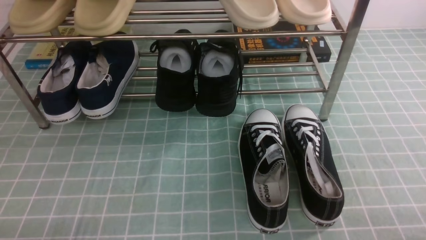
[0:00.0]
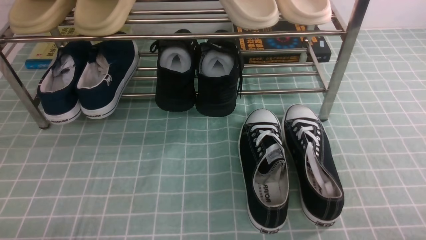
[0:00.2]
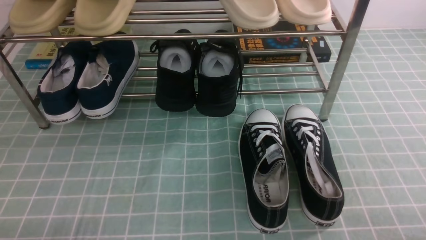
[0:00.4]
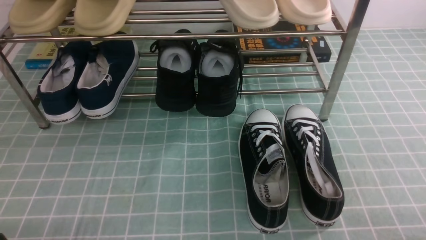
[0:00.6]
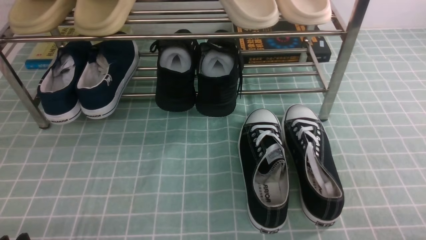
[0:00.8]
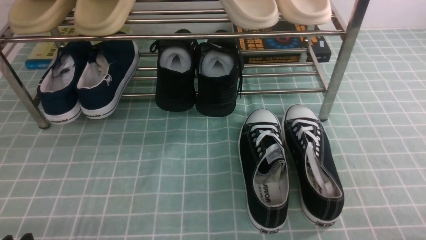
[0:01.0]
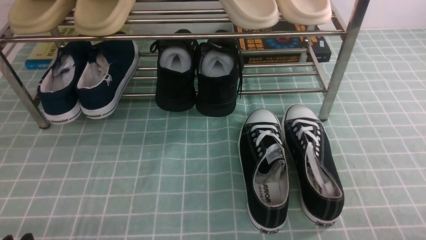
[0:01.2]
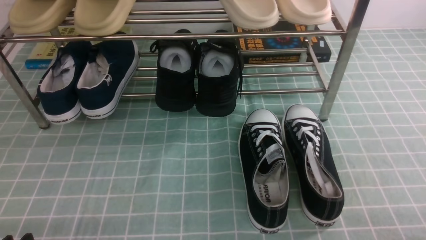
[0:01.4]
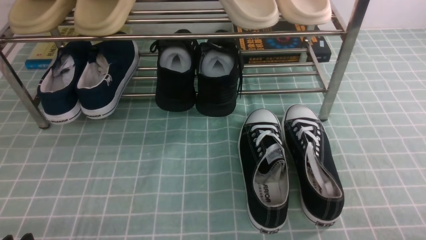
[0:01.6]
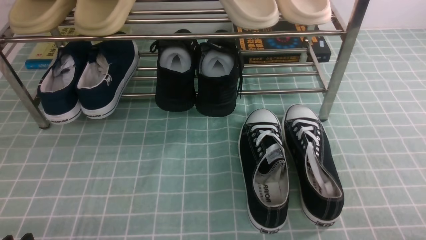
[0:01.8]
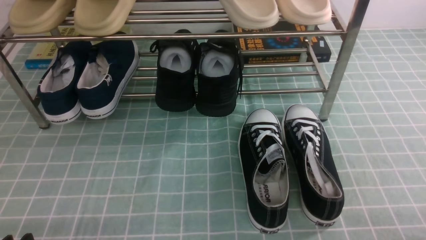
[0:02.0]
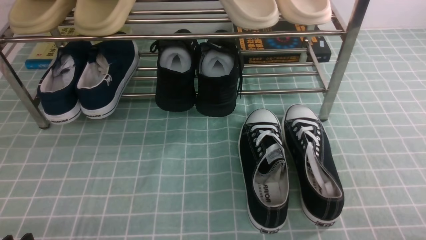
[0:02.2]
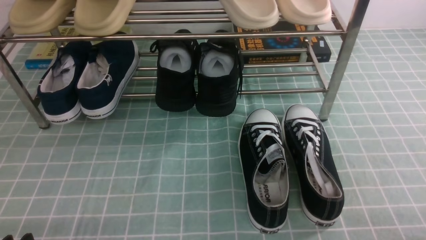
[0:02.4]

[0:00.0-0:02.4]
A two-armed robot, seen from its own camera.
0:01.2 to 0:02.4: The two grippers keep their place.

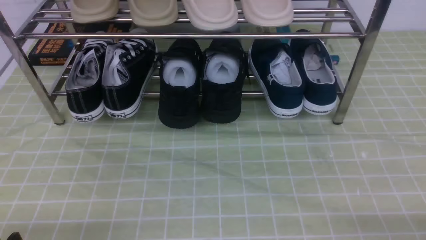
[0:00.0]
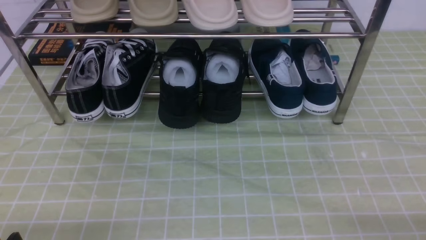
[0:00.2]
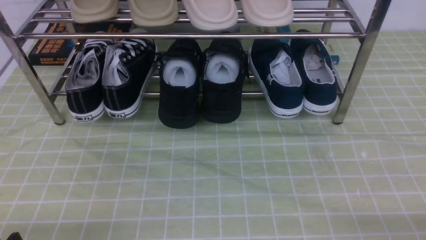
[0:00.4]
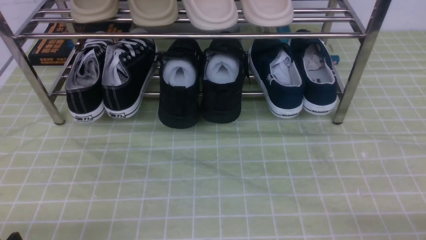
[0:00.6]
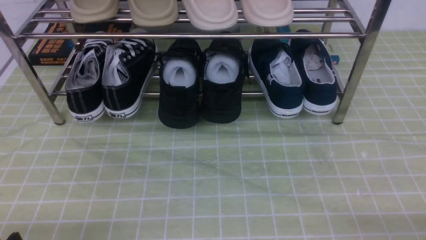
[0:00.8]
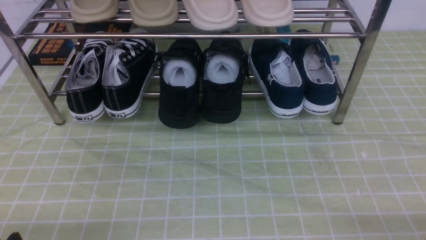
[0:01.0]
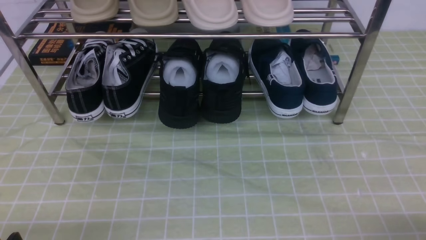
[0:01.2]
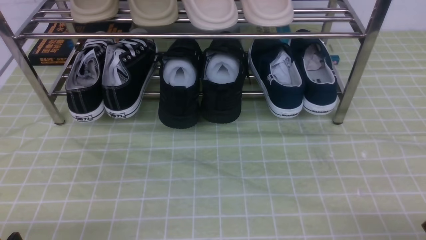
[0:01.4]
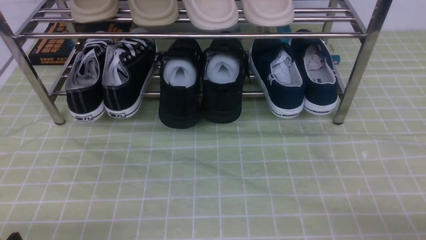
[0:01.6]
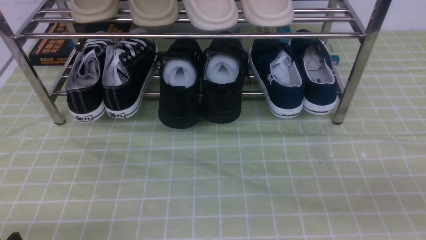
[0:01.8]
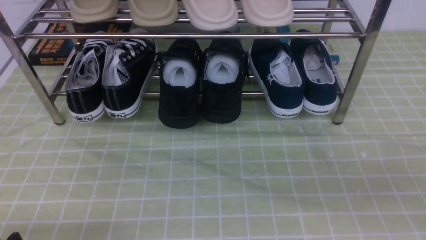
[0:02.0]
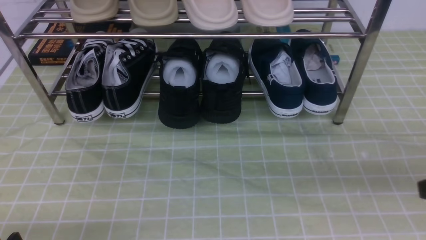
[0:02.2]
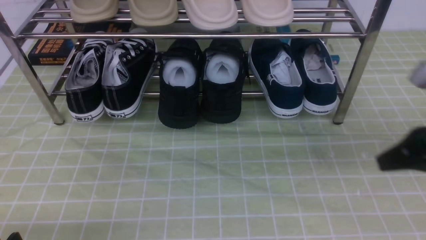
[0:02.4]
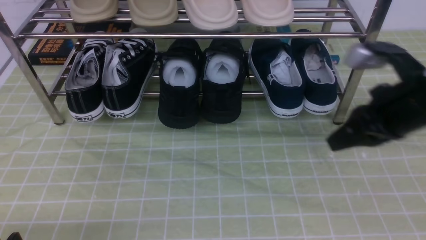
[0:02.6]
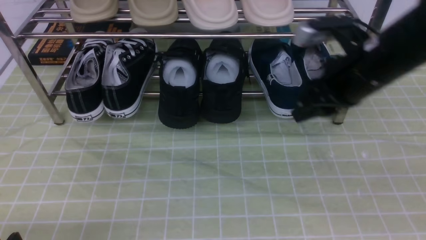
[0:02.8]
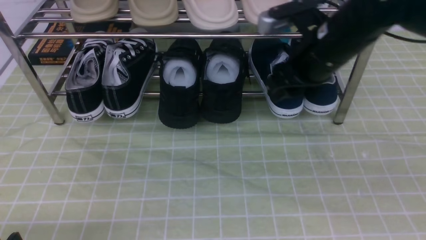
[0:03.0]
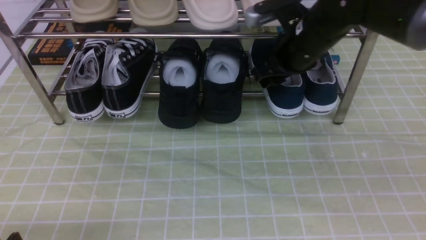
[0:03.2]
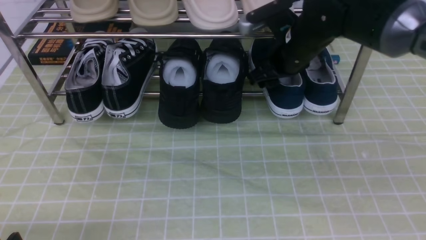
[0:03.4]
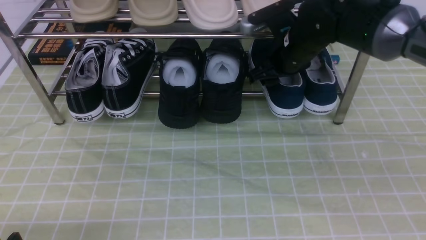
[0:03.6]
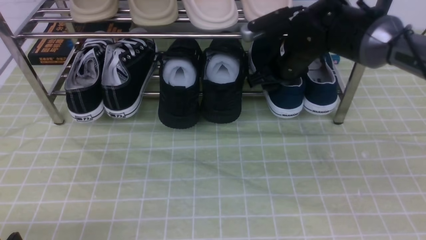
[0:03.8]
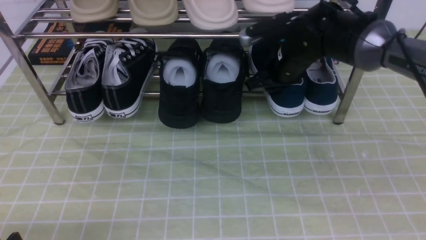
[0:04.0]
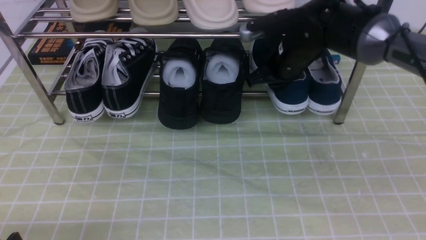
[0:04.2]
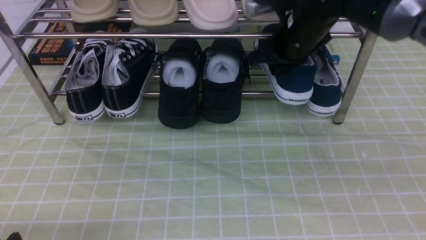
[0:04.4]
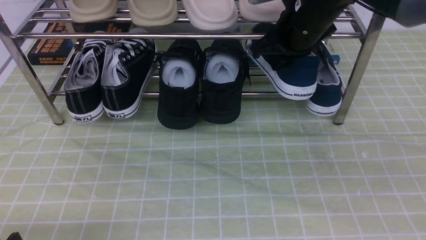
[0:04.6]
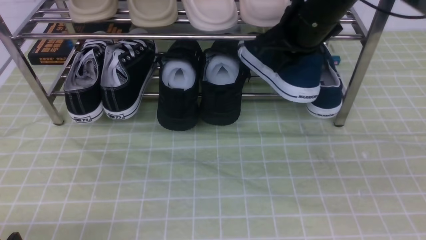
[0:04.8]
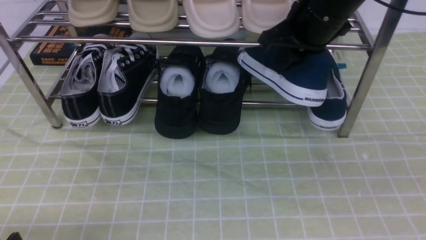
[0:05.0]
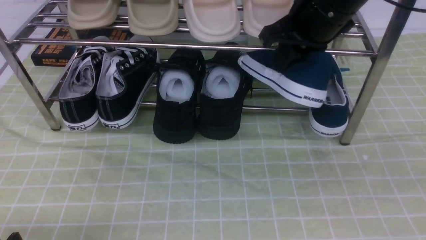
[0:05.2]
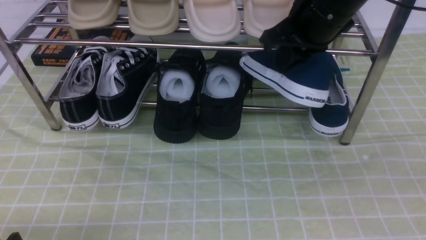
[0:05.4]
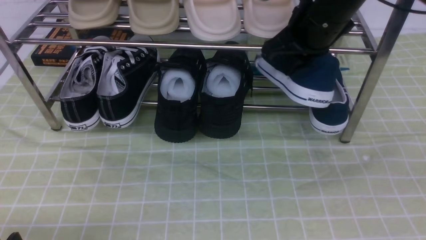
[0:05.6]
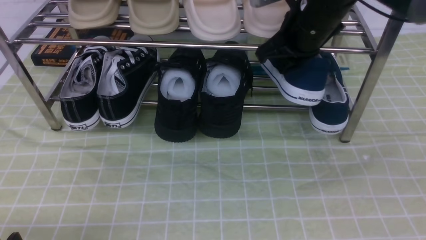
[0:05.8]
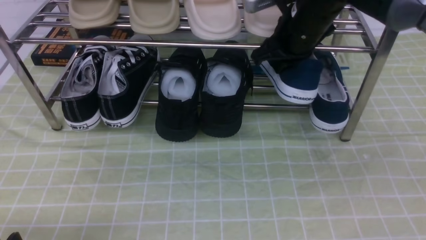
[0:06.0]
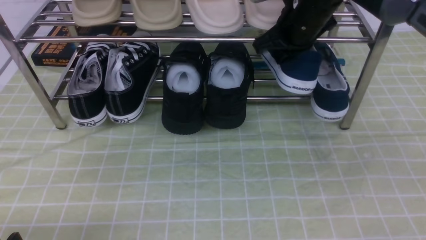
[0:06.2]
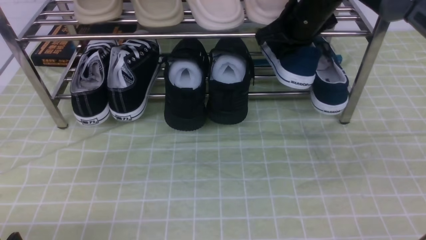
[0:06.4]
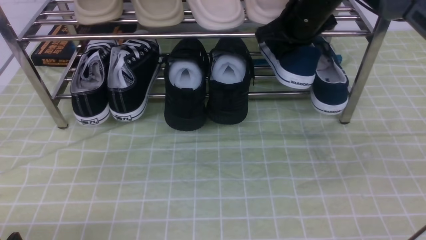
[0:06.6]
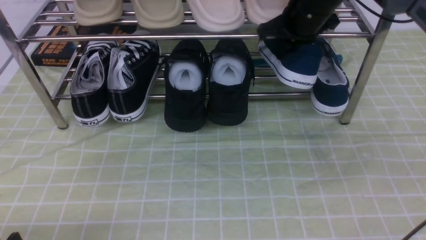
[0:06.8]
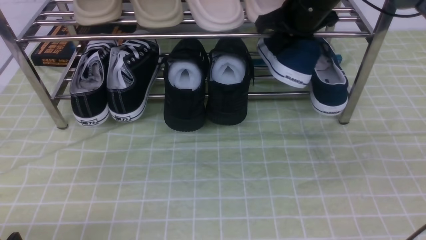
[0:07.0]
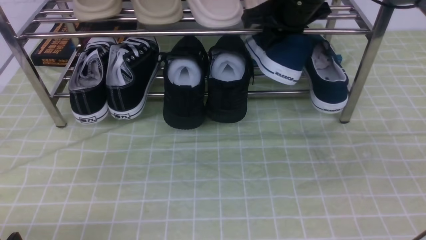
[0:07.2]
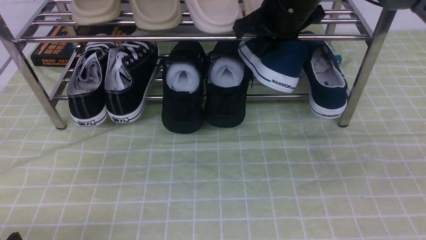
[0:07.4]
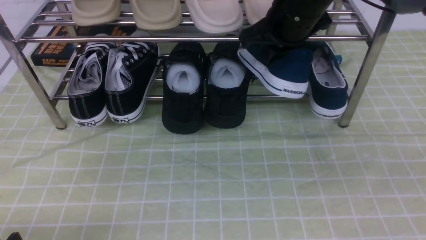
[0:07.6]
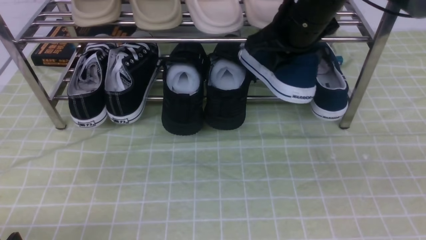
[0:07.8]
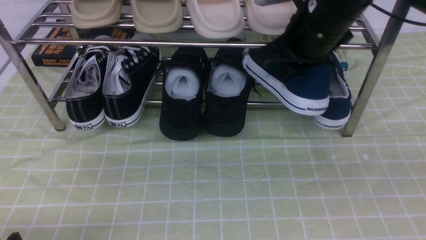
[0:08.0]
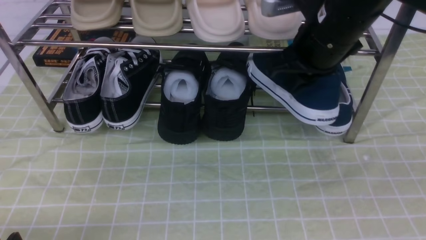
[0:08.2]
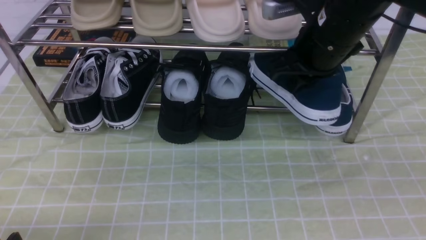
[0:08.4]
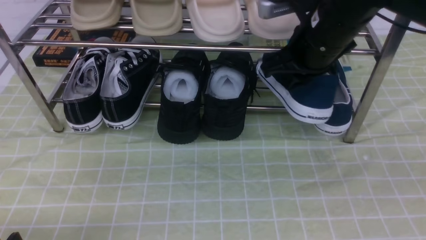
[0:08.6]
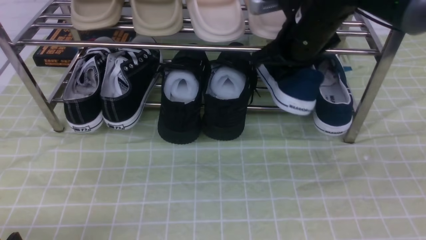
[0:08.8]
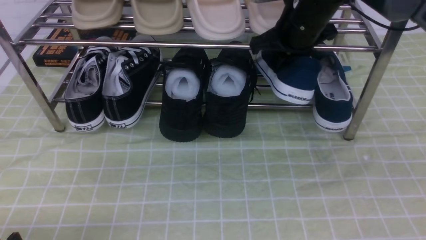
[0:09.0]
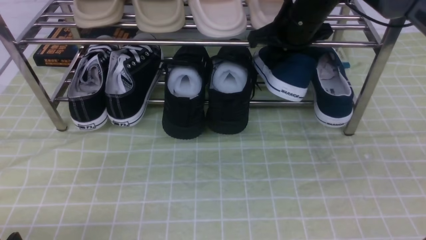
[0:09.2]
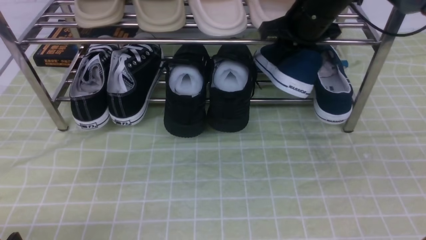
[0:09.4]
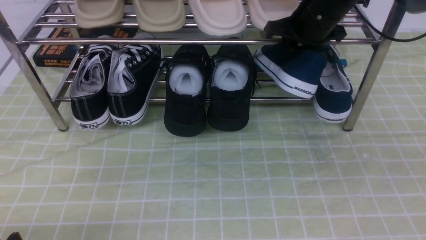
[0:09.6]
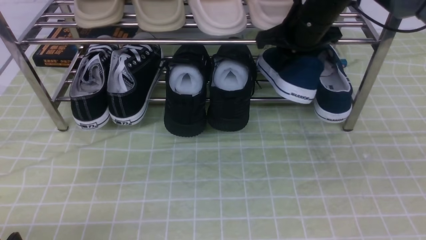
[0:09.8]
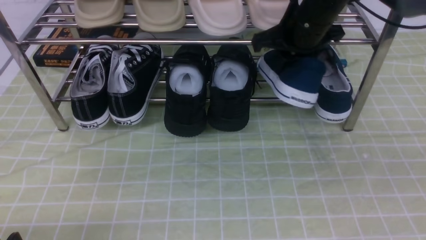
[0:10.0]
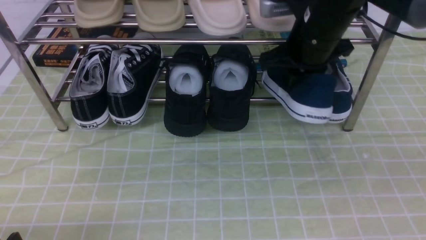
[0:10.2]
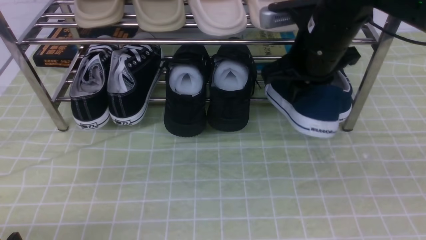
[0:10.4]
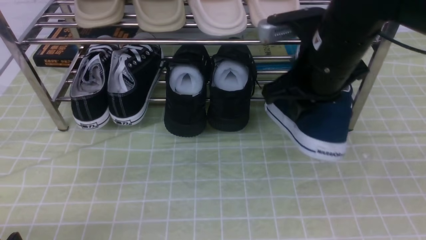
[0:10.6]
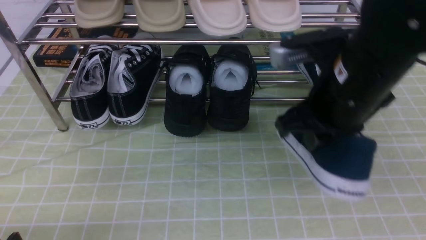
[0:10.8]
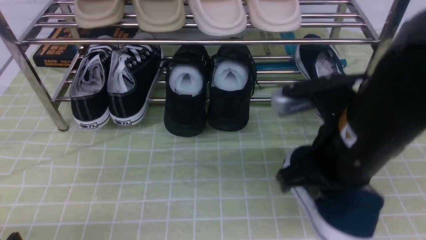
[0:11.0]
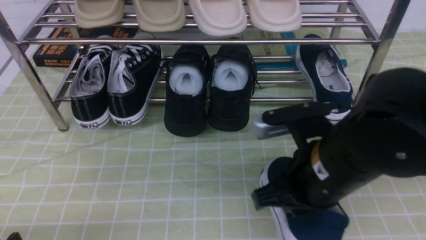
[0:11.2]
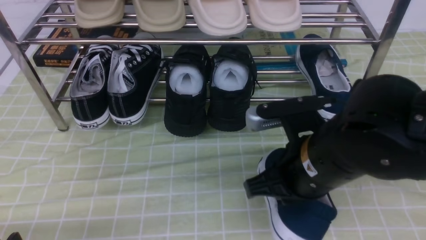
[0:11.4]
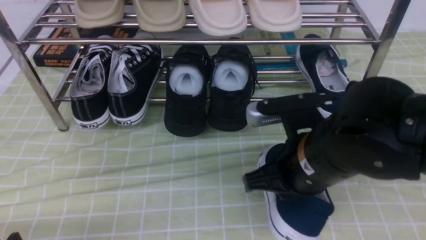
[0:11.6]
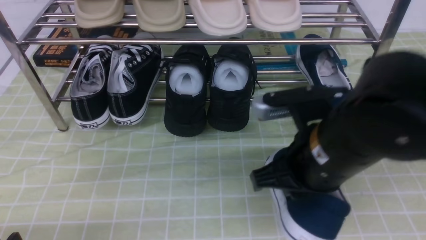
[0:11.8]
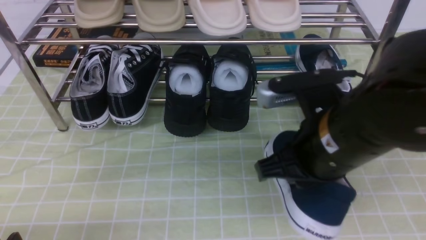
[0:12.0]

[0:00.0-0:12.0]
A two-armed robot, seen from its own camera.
Step, 0:00.0 to 0:04.0: use the right arm to clamp a shoe on the right side of the shoe rack.
0:01.6 to 0:03.0: The right gripper heads forward and to the left, covering approximately 35 cm, and opens up.
0:03.0 to 0:04.4: The right gripper shifts about 5 cm forward, and closes up.
0:09.0 to 0:10.4: The right gripper heads backward, covering some 10 cm.
0:10.4 to 0:12.0: The right gripper travels backward by about 15 cm.

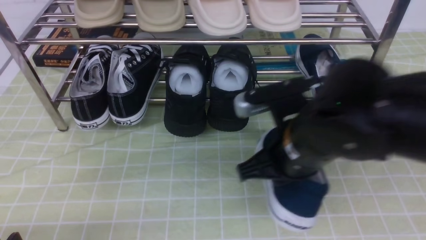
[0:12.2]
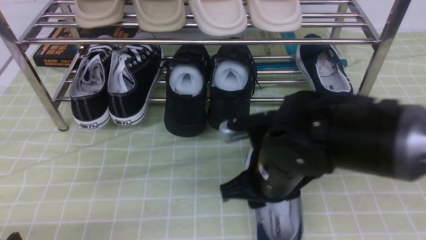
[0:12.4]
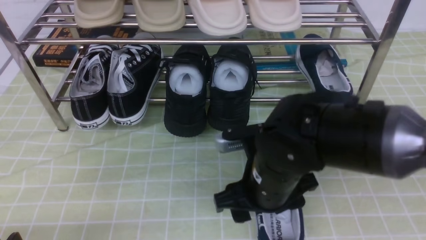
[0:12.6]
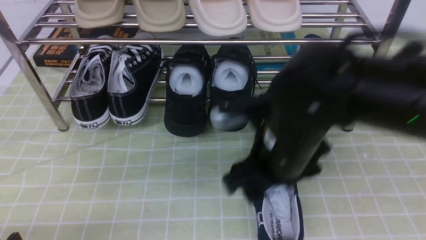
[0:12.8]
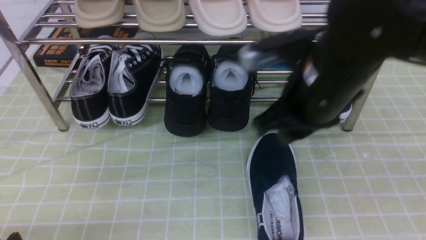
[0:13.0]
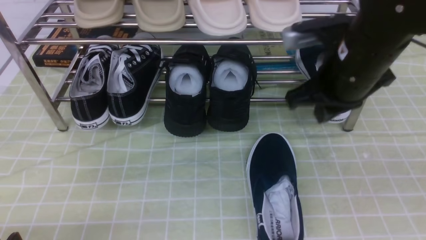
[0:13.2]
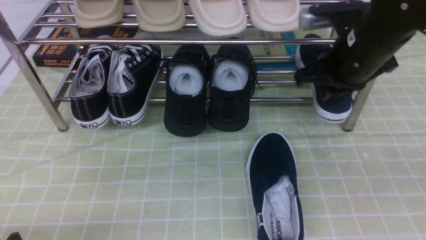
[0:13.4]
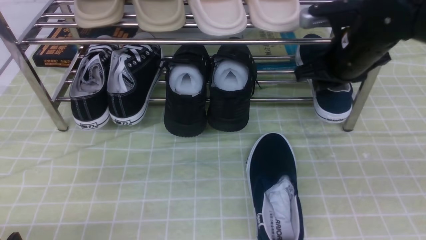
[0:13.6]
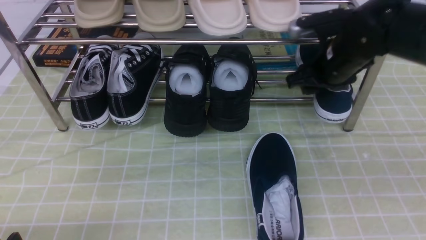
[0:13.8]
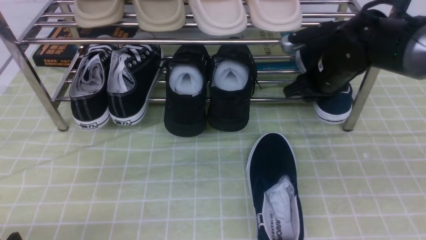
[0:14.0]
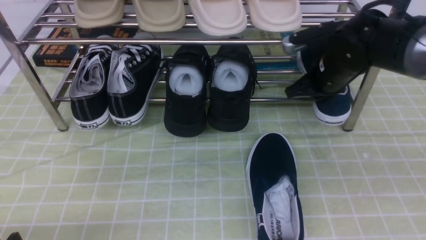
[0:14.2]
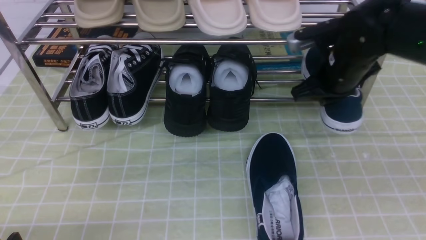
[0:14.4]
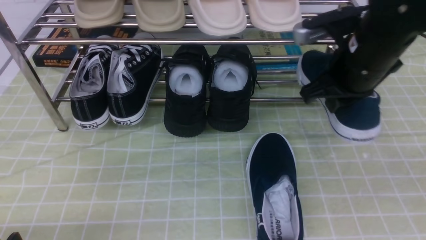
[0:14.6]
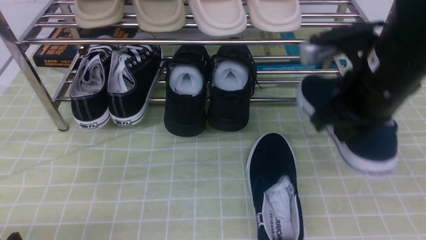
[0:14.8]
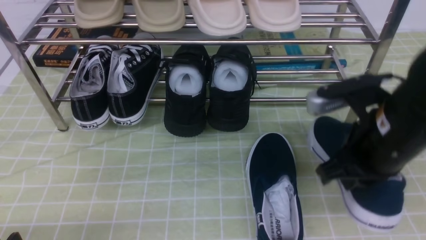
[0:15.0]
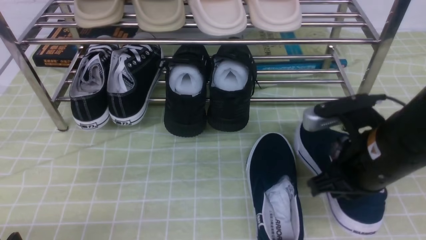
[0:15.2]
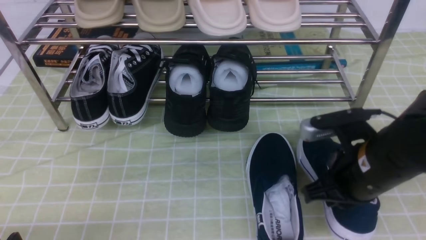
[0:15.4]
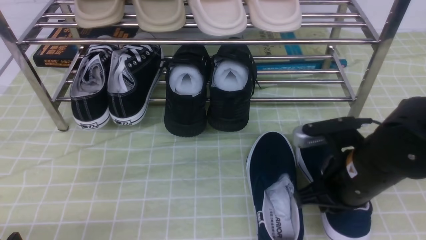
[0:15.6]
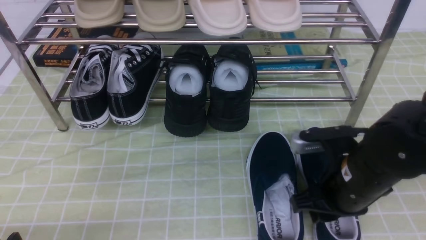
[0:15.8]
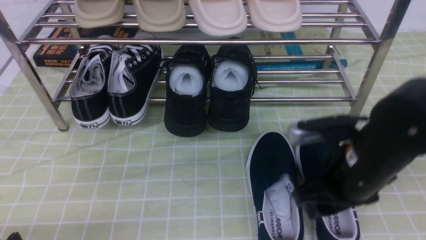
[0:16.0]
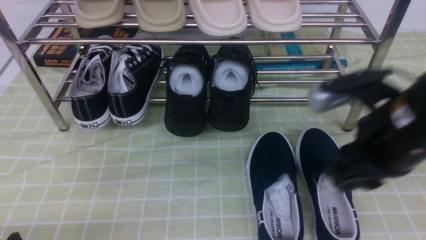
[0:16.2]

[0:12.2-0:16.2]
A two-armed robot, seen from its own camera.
Step, 0:13.0 to 0:14.0: use the right arm to clamp a shoe on the right side of the shoe rack.
0:12.2 to 0:13.6: The right gripper travels forward and to the right by approximately 20 cm.
0:13.6 to 0:14.8: The right gripper travels backward by some 10 cm, and closes up.
0:14.8 to 0:16.2: The right gripper heads backward, covering roughly 5 cm, goes downward and returns, roughly 10 cm each way, and opens.
